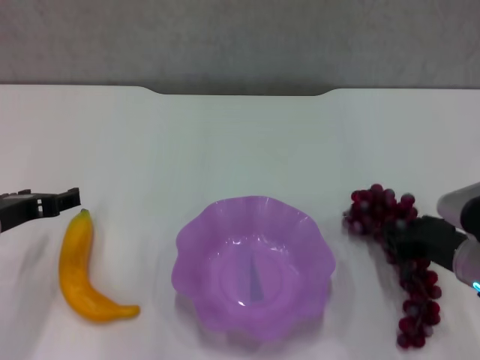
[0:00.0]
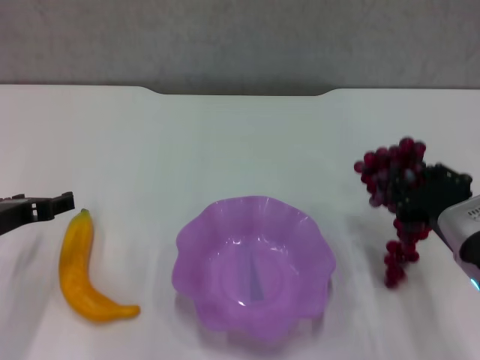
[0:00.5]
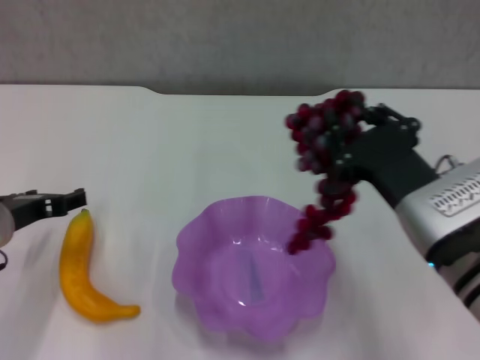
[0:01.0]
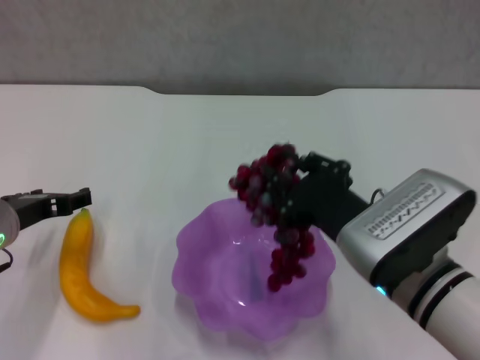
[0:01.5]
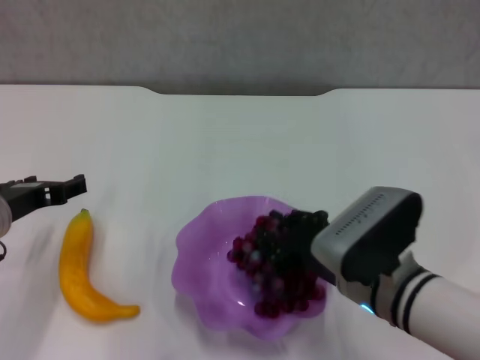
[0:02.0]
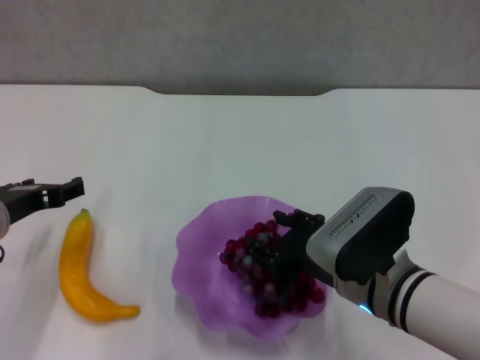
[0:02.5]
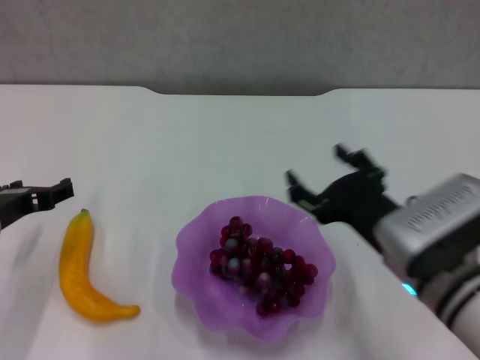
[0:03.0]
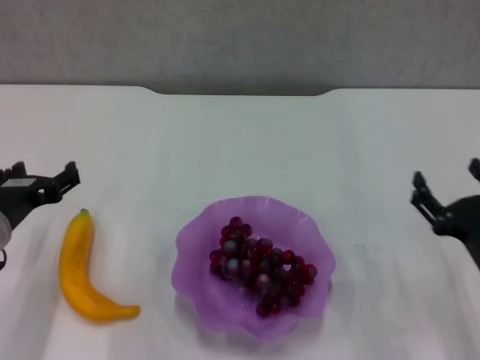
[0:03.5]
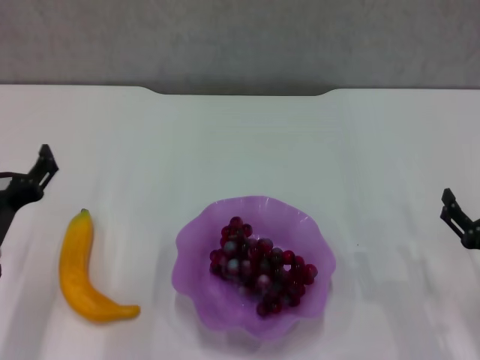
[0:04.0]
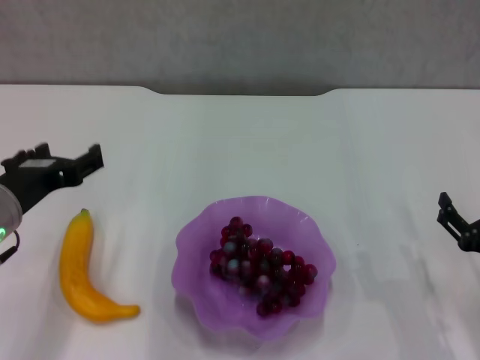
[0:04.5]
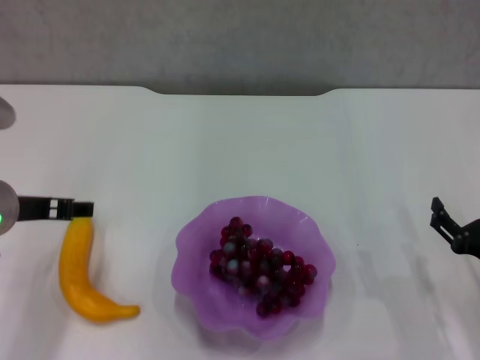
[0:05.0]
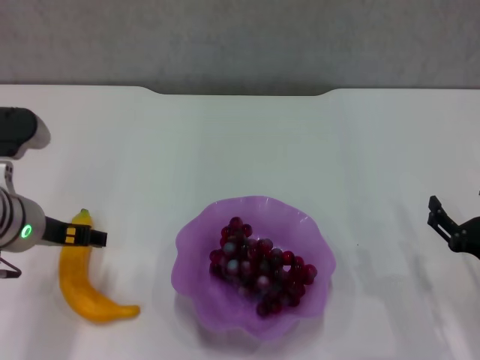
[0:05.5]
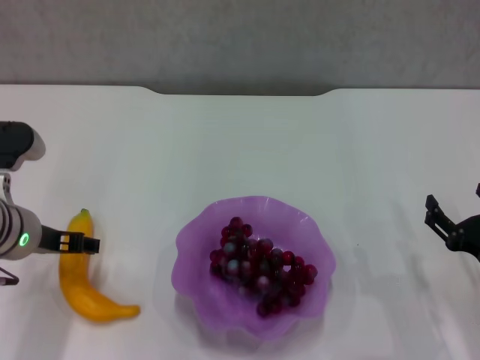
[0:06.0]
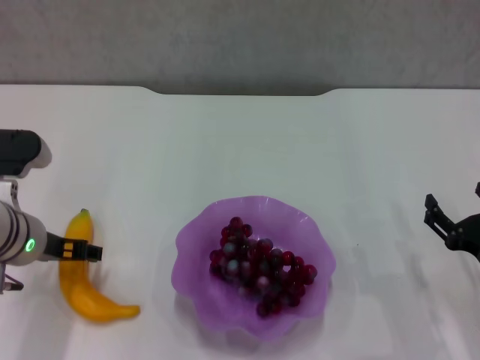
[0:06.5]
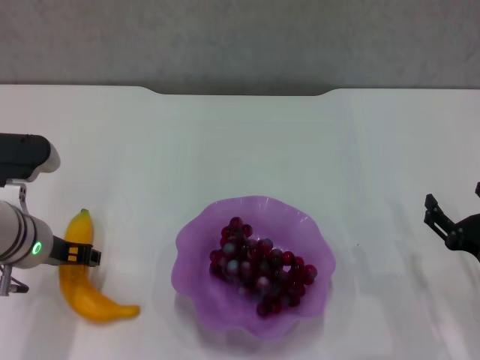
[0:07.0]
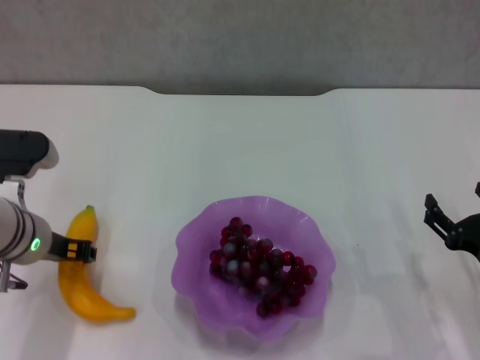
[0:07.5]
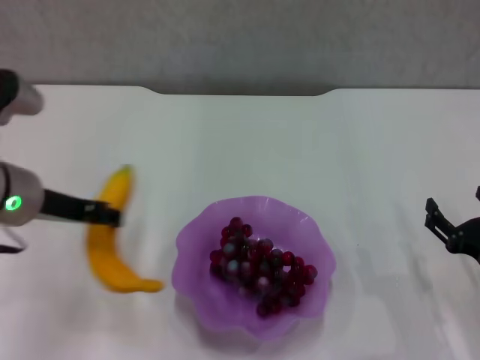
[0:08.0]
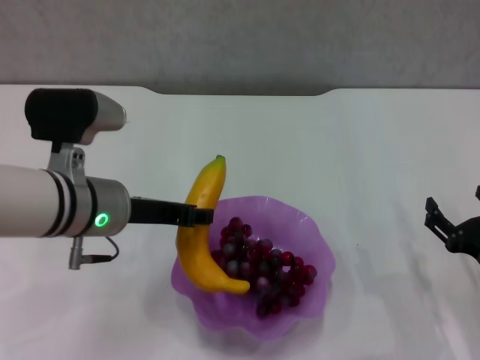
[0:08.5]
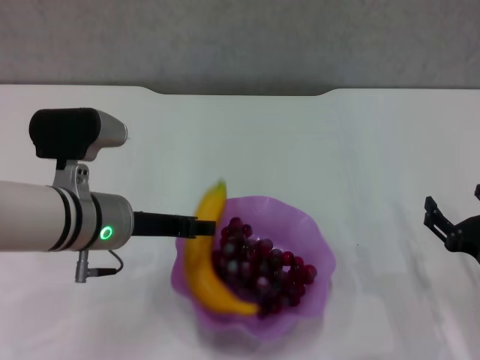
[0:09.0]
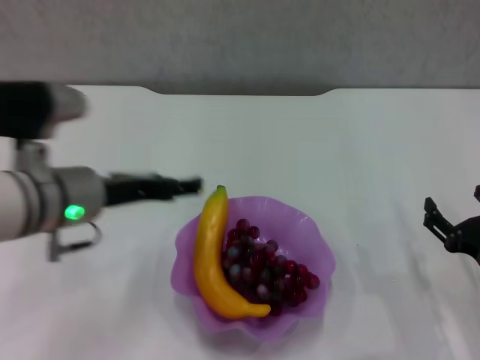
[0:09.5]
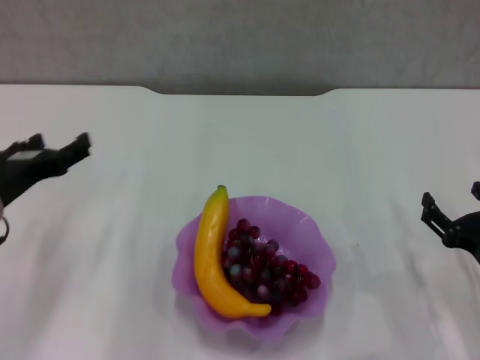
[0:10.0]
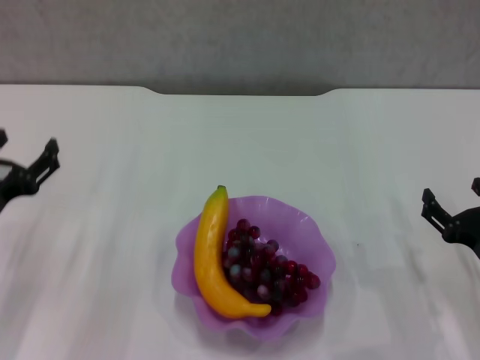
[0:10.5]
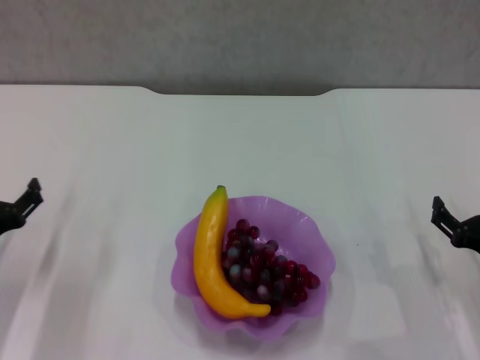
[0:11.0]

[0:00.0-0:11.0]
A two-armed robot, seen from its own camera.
Step, 0:00.0 to 0:02.5: Place the grape in the purple plate with right gripper.
Step, 0:03.0 to 0:07.0: Grasp the banana with left gripper.
Step, 0:07.5 to 0:09.5: Place the banana in the purple plate with left gripper.
0:00.0 to 0:02.0: The right gripper moves to the left, approximately 10 cm.
0:02.0 to 0:03.5: The right gripper is displaced to the right by approximately 15 cm, and opens up.
0:03.5 to 0:05.5: The left gripper shifts by some 5 cm.
0:05.5 to 0:07.5: The left gripper closes.
0:07.5 to 0:09.0: The left gripper shifts some 5 cm to the right.
0:09.0 to 0:11.0: The left gripper travels to the left and downward by approximately 20 cm, and opens up.

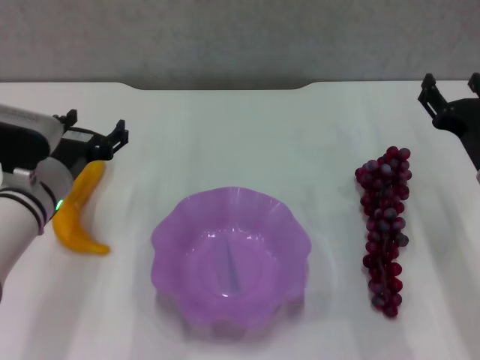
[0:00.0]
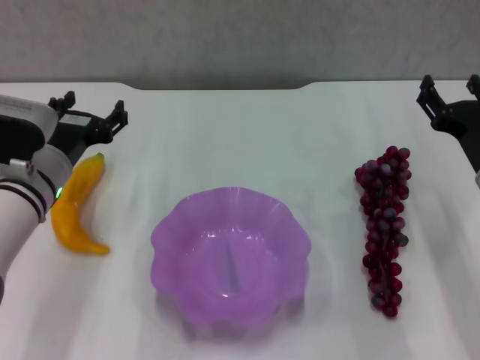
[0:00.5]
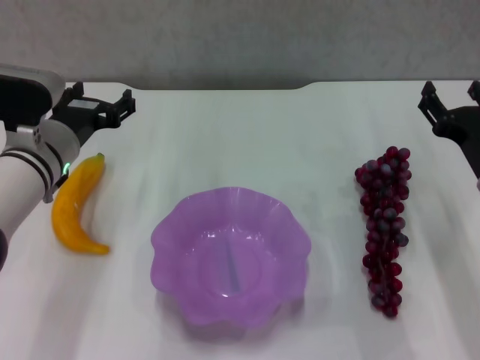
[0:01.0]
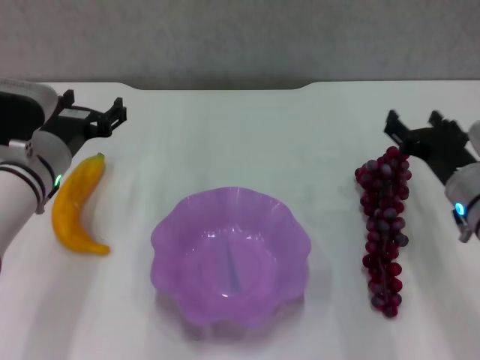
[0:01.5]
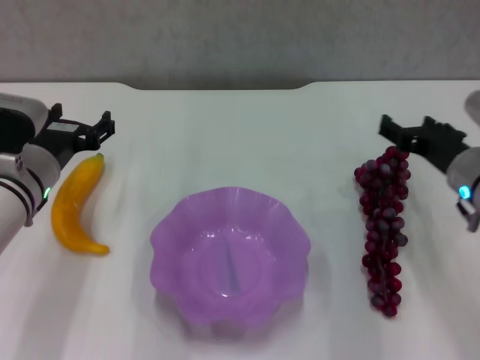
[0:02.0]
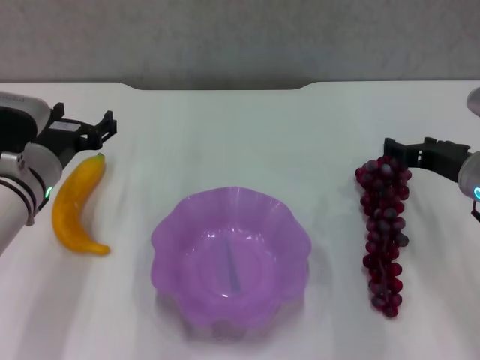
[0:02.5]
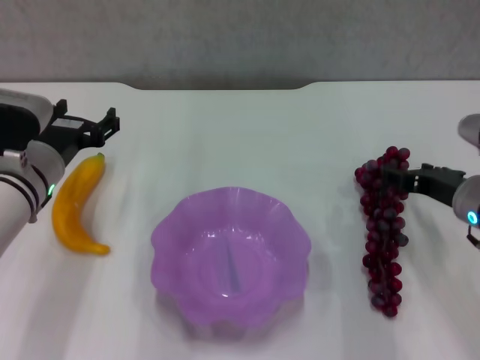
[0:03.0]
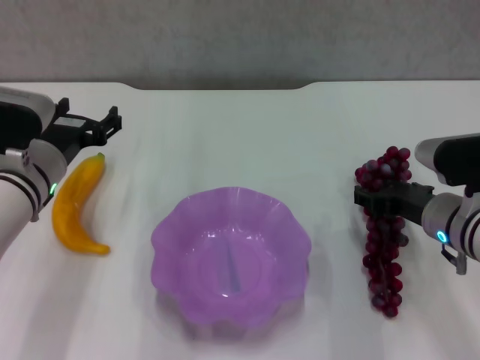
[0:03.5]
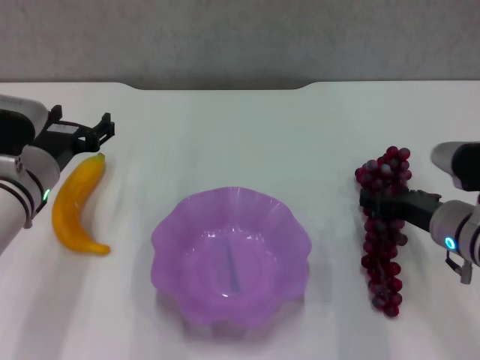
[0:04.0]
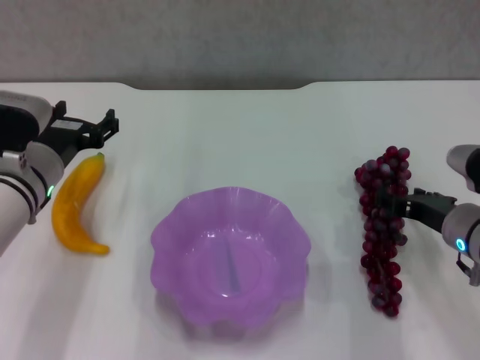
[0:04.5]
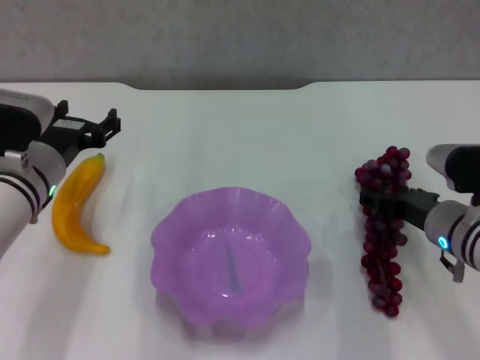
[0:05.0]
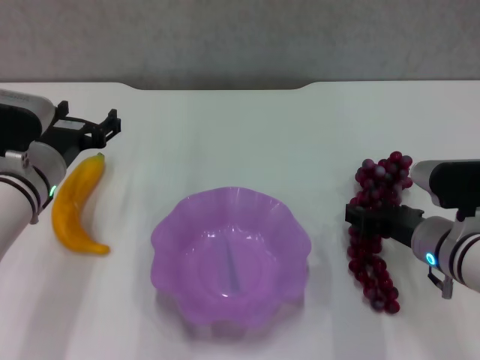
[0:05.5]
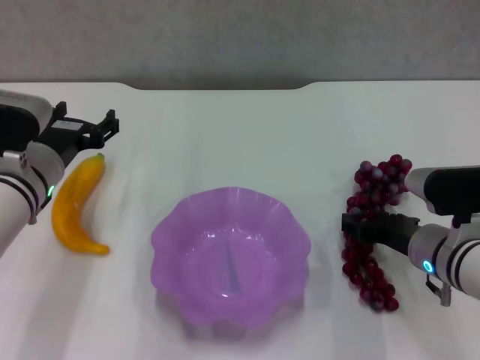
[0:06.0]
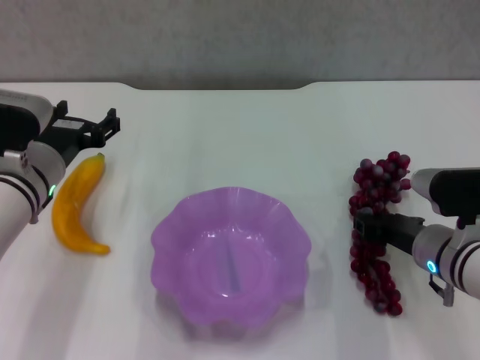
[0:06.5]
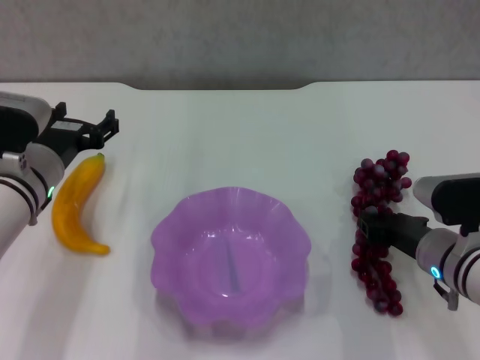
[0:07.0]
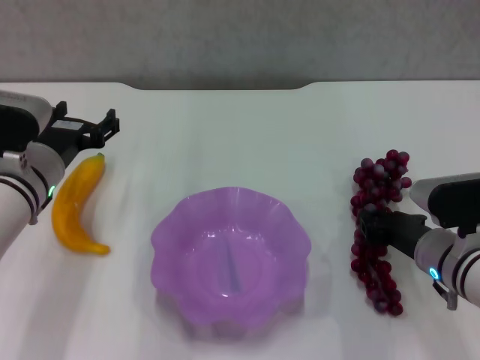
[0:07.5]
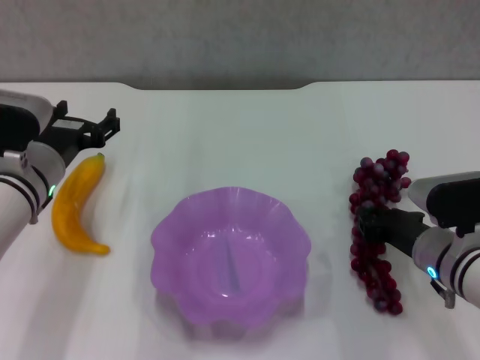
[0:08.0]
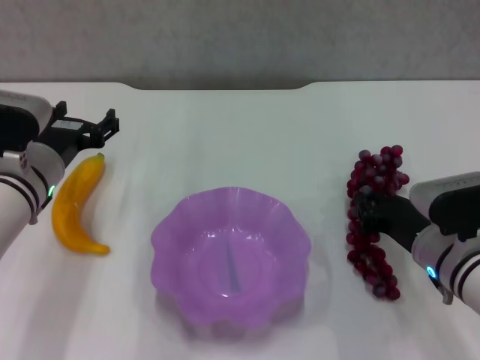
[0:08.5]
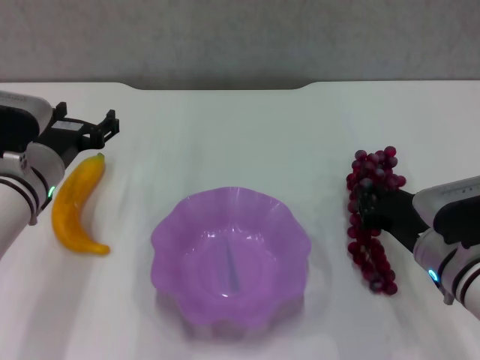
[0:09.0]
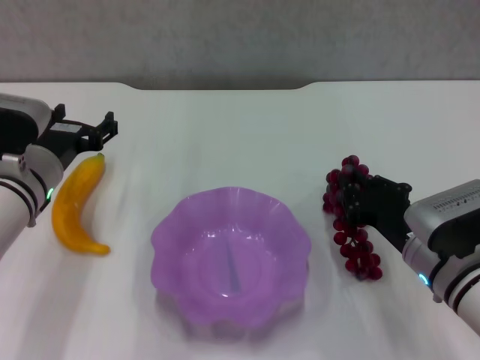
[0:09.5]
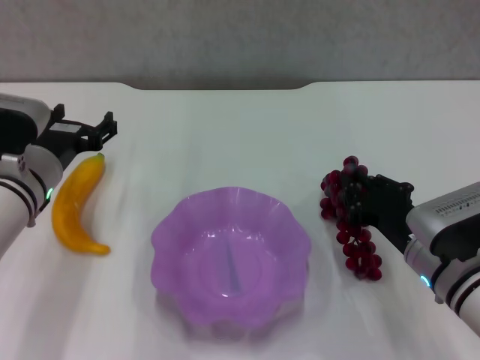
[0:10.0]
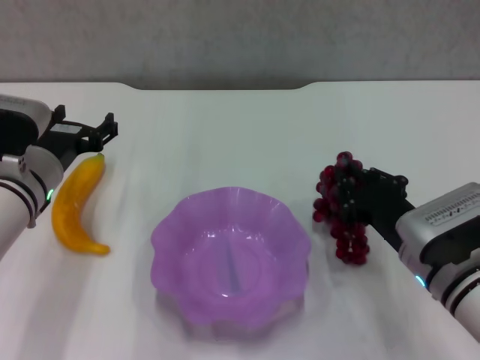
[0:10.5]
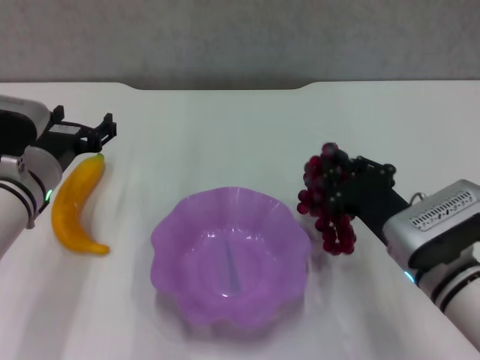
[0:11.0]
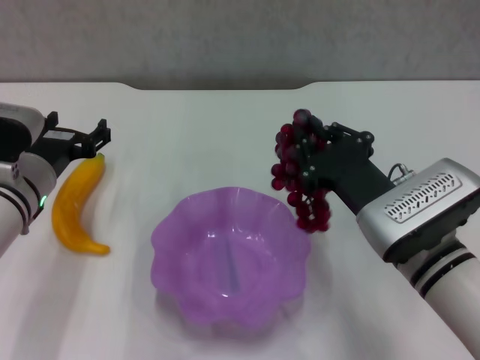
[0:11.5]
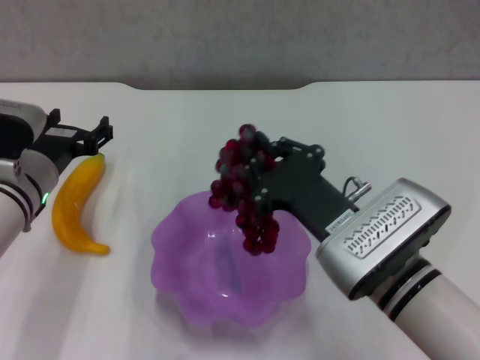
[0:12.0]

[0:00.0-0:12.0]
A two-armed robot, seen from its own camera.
Step, 0:00.0 to 0:07.5: Grasp the grape with right gripper.
0:02.0 to 0:04.0: The grippers stay close to where they were, moving slightly.
0:04.0 to 0:06.0: The grippers make only small movements.
0:06.0 to 0:08.0: The right gripper closes up.
0:10.0 to 0:12.0: The right gripper is displaced to the left and upward by roughly 10 cm.

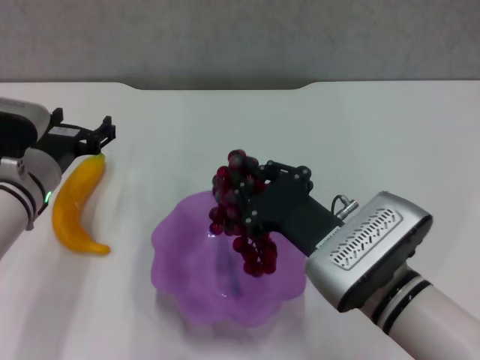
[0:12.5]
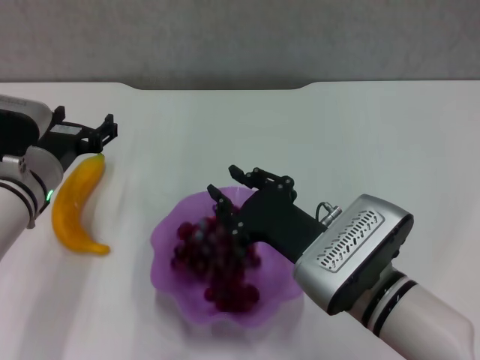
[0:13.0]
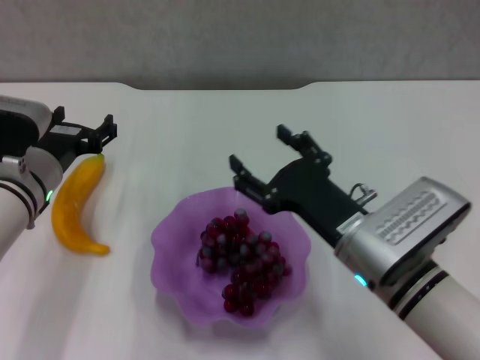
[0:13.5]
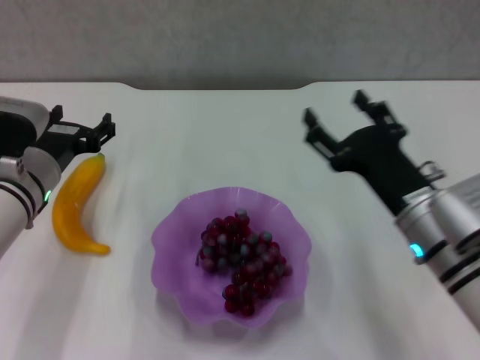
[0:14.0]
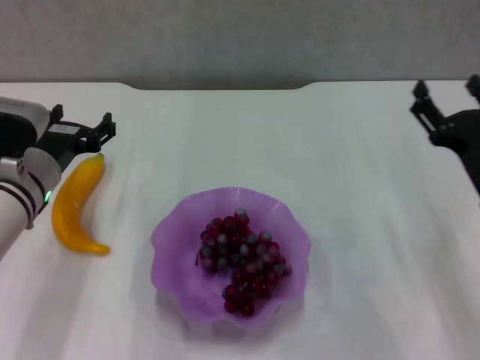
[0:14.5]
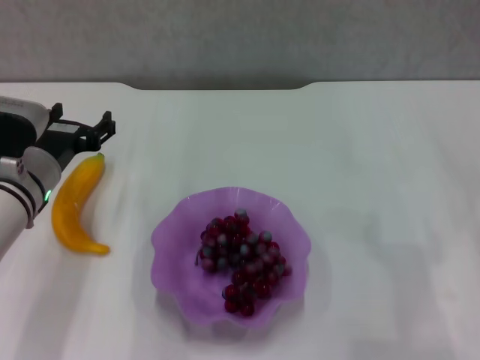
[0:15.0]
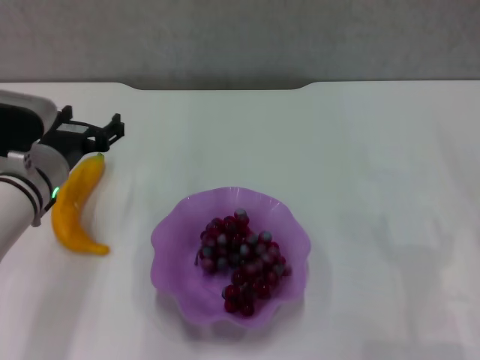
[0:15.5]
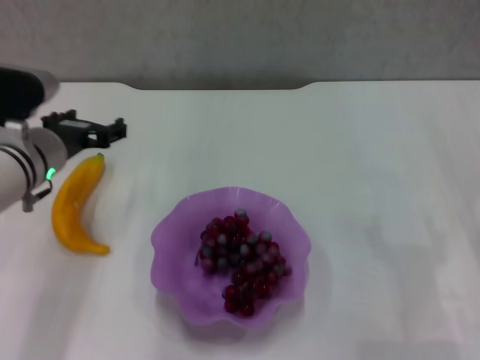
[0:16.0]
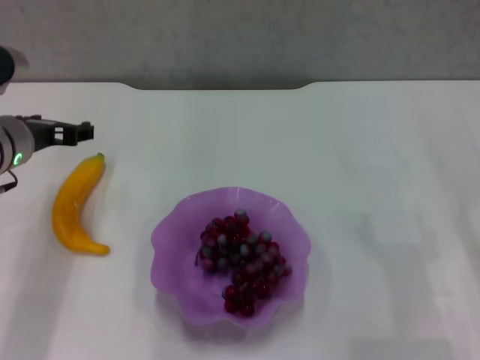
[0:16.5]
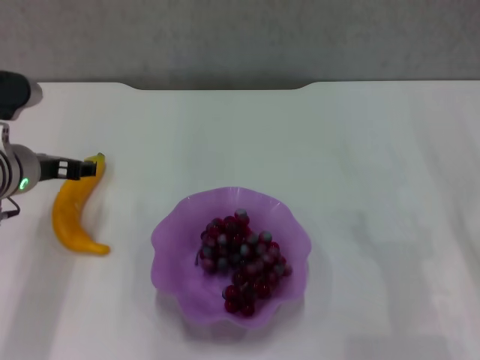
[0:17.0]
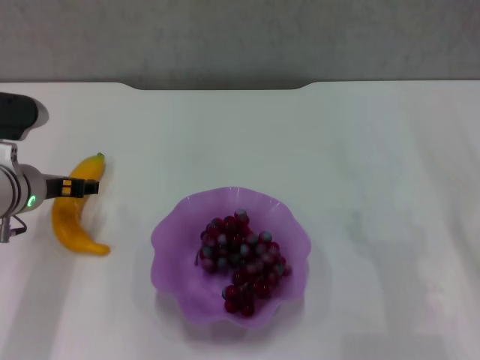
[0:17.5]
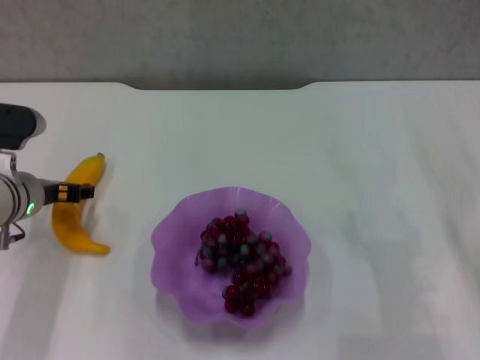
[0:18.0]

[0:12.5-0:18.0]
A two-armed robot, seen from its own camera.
0:12.5 to 0:14.5: The right gripper goes approximately 15 cm to the right, and opens up.
0:14.5 to 0:16.0: The right gripper moves to the right, about 5 cm.
0:16.0 to 0:18.0: The left gripper moves about 5 cm.